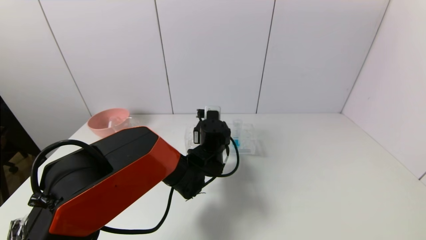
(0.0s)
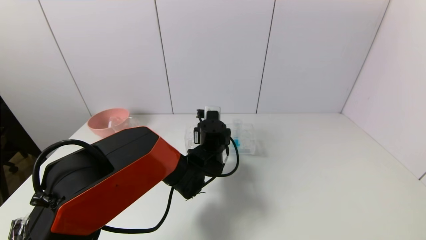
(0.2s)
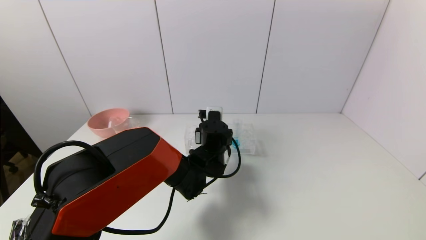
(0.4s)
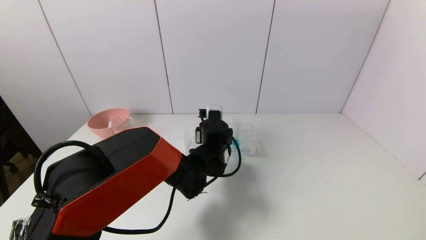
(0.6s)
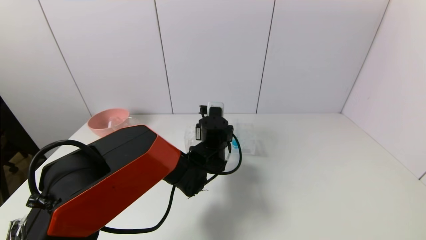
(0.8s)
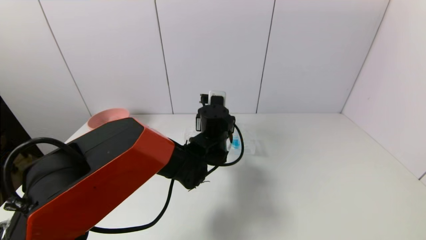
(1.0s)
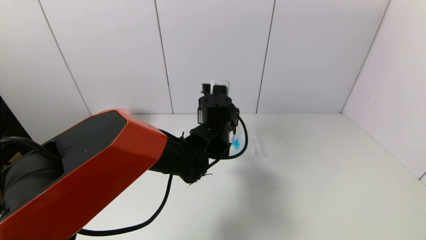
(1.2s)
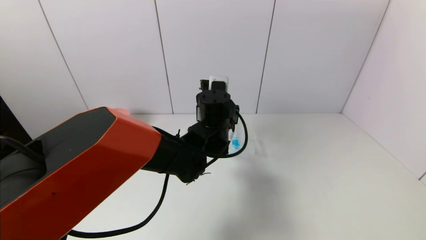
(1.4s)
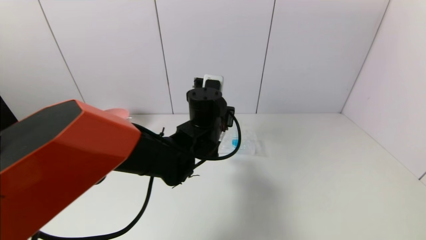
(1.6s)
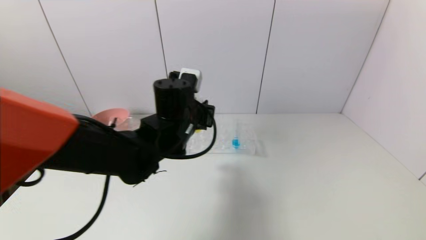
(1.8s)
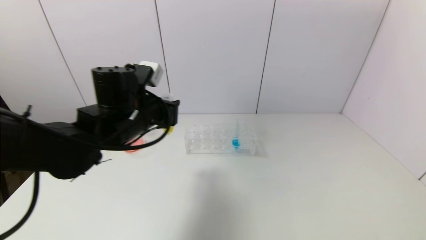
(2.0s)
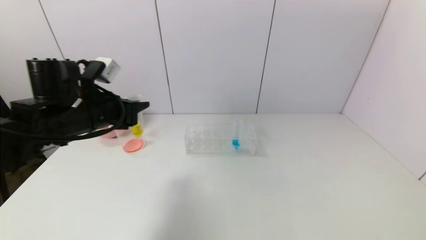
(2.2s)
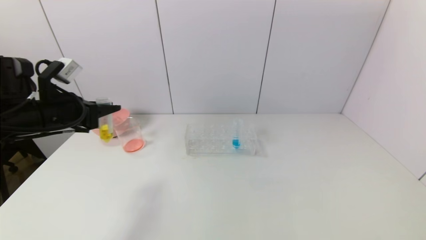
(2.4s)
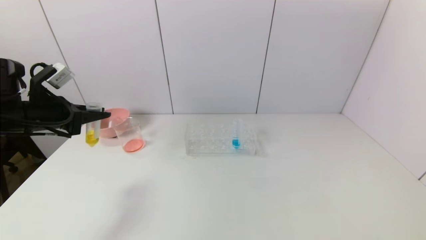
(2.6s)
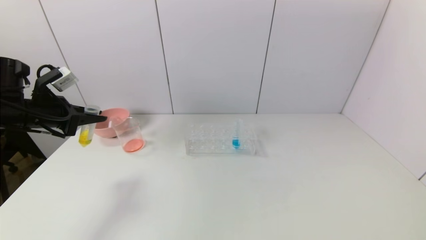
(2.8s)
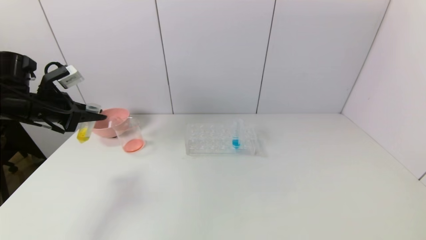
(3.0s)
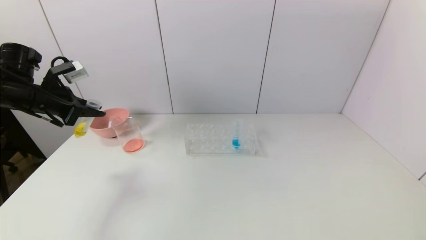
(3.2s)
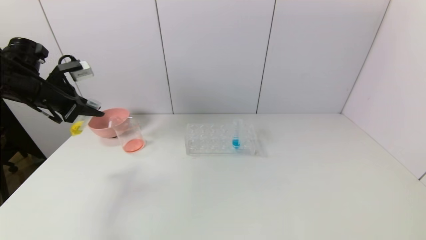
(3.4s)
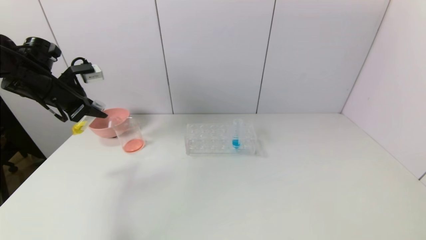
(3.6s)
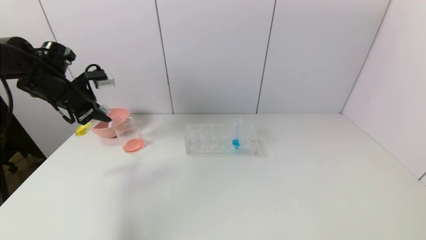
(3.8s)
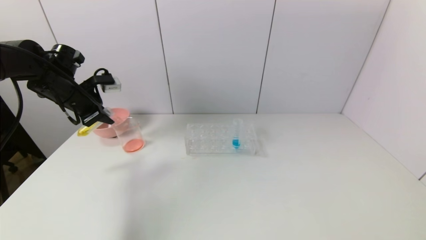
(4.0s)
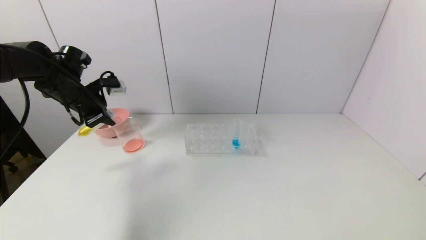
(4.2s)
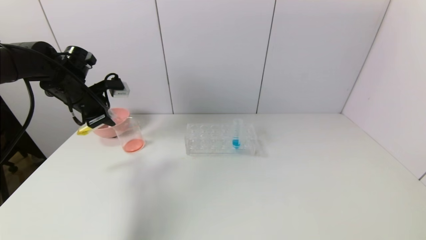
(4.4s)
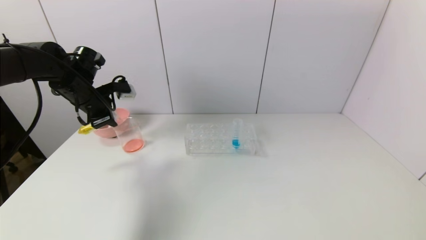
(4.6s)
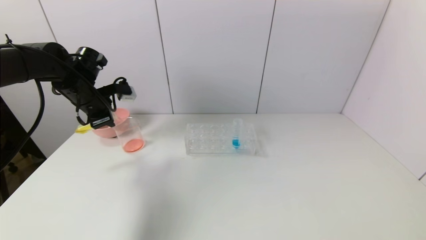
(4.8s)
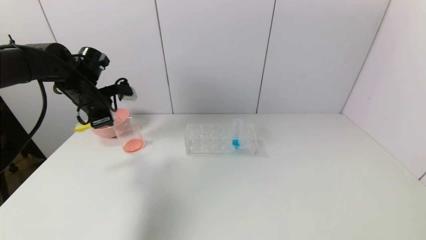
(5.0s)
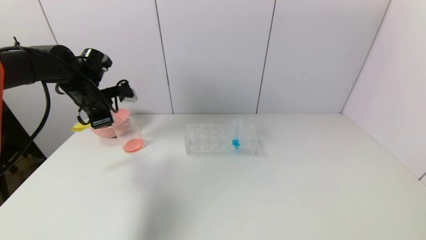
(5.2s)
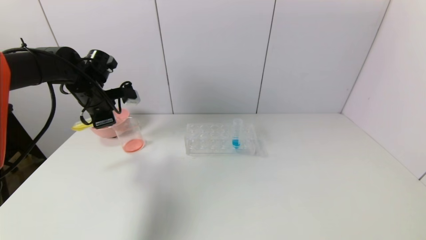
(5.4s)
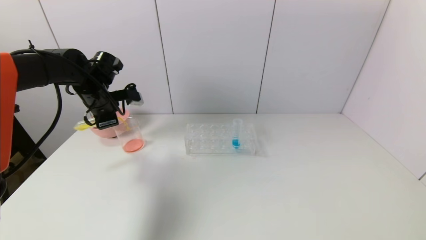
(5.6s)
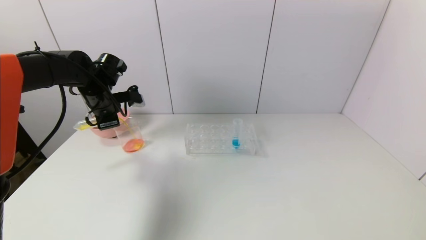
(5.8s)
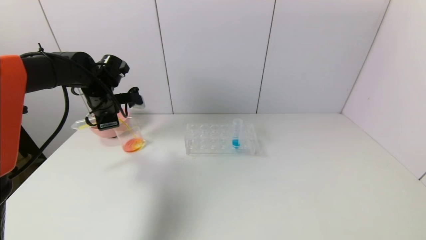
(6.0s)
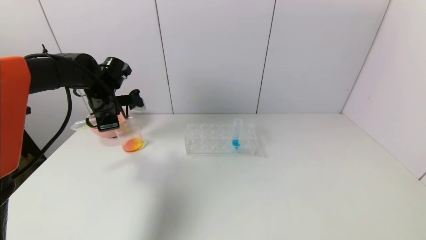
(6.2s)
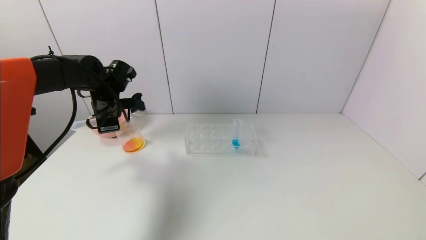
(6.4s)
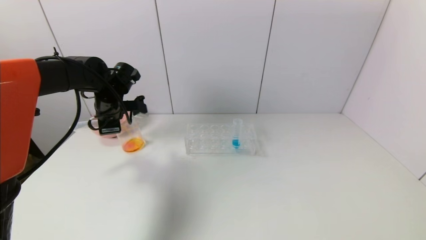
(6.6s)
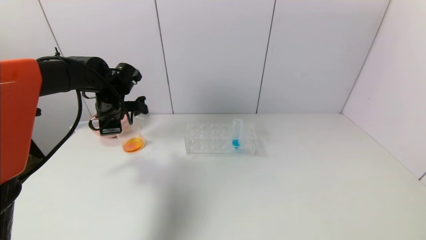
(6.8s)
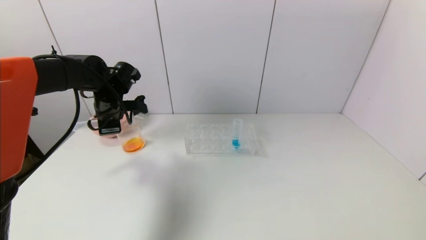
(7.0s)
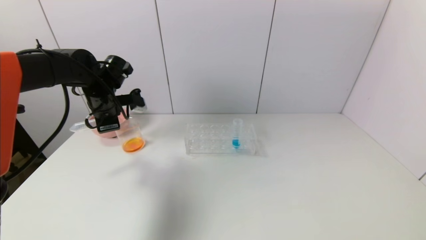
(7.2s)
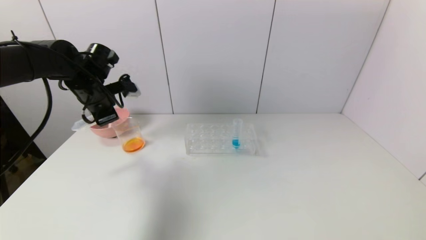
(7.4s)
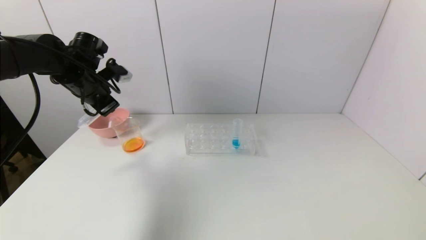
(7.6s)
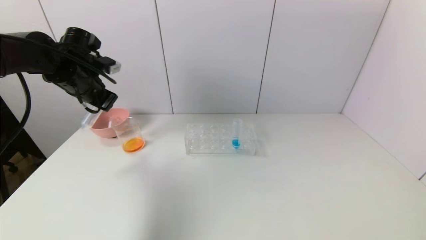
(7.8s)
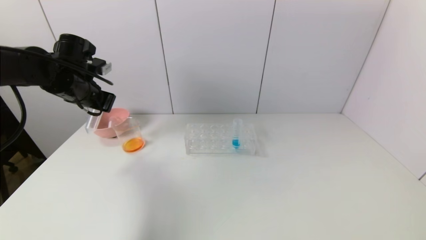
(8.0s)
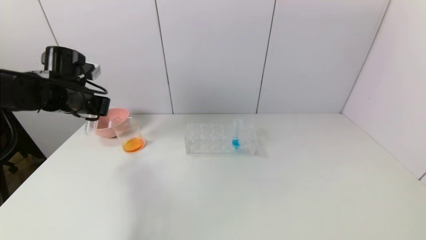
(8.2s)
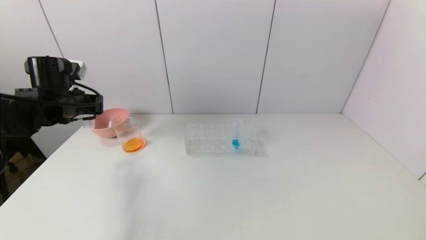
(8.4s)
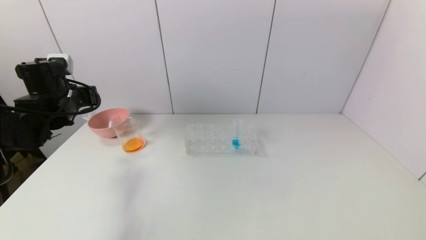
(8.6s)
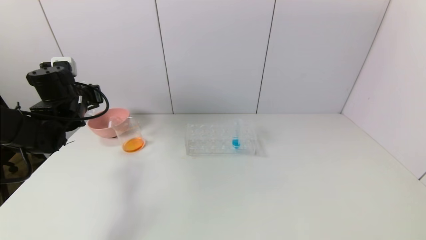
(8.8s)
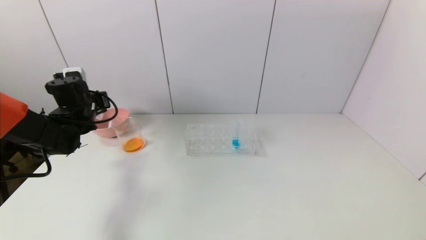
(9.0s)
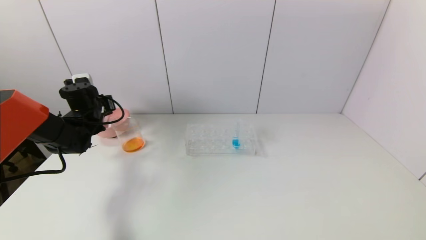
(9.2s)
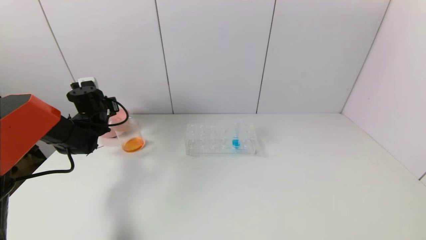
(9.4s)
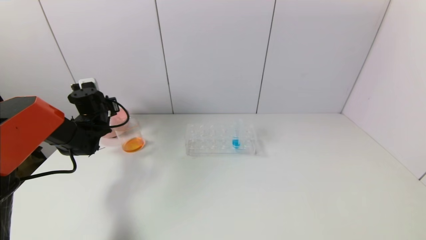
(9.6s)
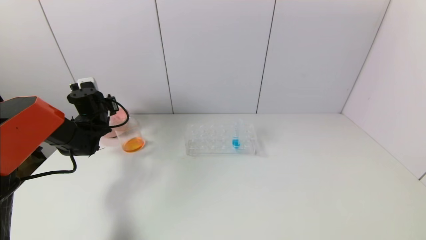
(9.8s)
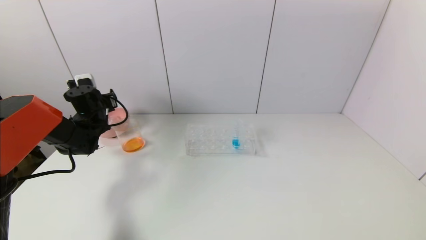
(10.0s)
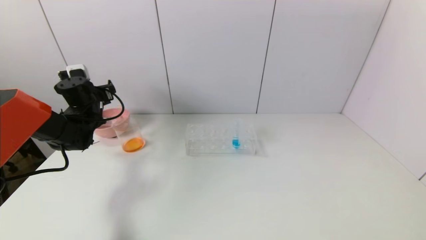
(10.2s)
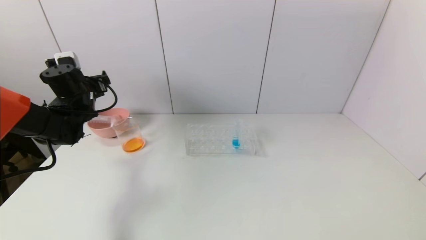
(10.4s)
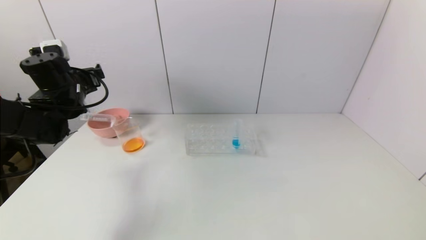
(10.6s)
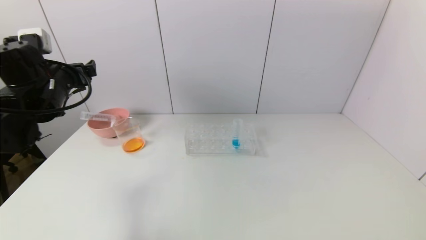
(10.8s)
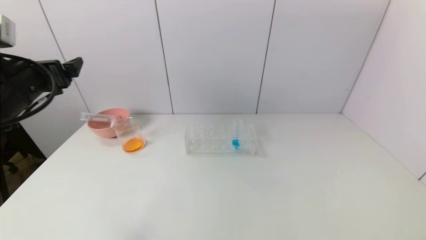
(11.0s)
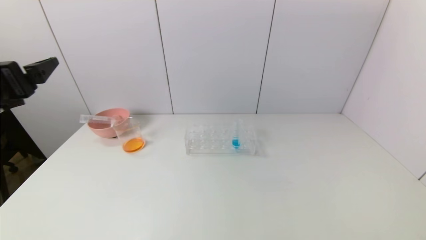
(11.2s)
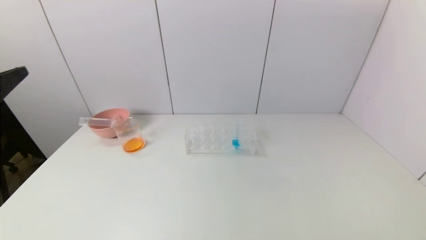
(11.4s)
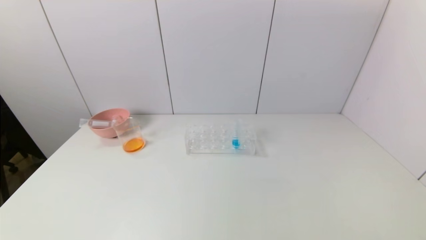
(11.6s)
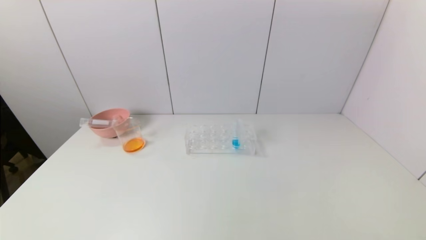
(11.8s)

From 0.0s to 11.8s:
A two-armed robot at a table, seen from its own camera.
Task of the whole recording: pick up the test tube with yellow pigment and the test tube with red pigment by grippers and pour them into the beaker.
Step, from 0.6s to 6.8s: Pour the yellow reagent into the graduated cylinder with the left gripper.
Step, from 7.0s to 10.0s: Place the test tube into the pink bowl with the left gripper.
From 0.0s to 1.4s: The left gripper travels upward by some 10 cm, and closes up.
From 1.4s to 3.0s: The left gripper heads to the left, covering some 40 cm.
From 3.0s to 4.4s: The left gripper heads forward and to the right, covering approximately 10 cm.
From 4.4s to 6.0s: The left gripper changes place by roughly 5 cm.
From 6.0s to 7.4s: The grippers make only small movements.
From 7.4s to 8.8s: The left gripper moves to the left, about 5 cm.
From 8.8s to 10.4s: The left gripper opens up.
From 10.4s to 11.8s: The left gripper travels backward by approximately 40 cm.
